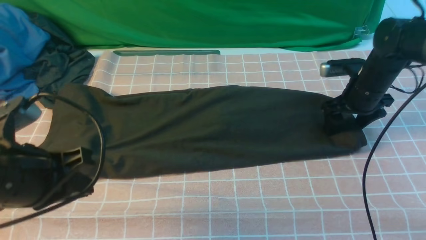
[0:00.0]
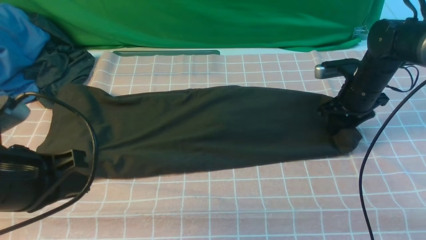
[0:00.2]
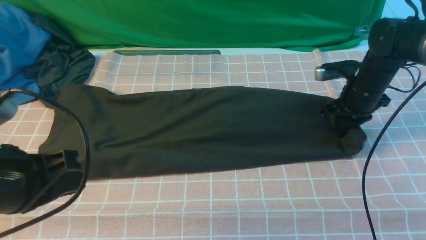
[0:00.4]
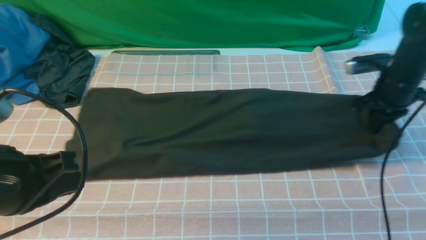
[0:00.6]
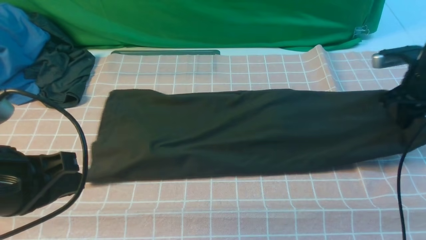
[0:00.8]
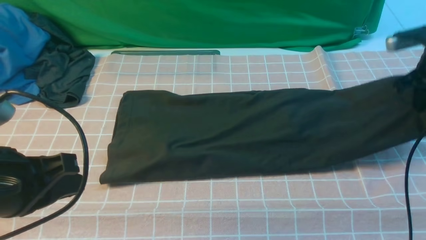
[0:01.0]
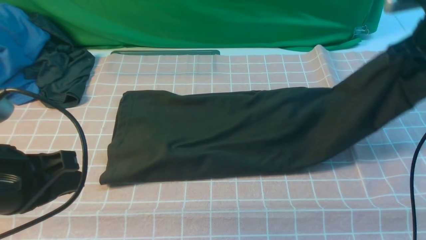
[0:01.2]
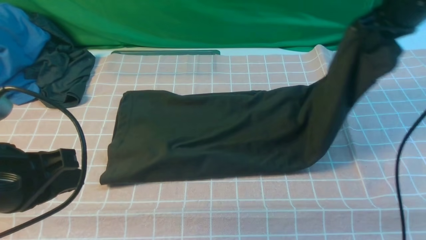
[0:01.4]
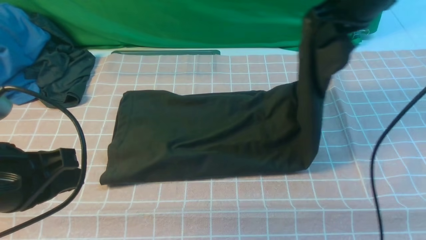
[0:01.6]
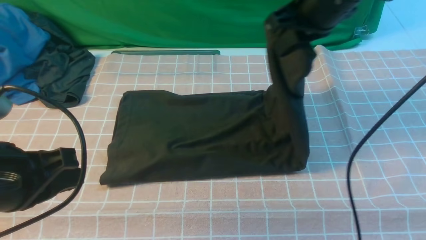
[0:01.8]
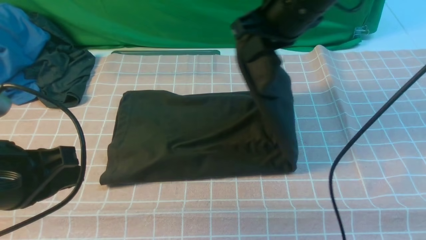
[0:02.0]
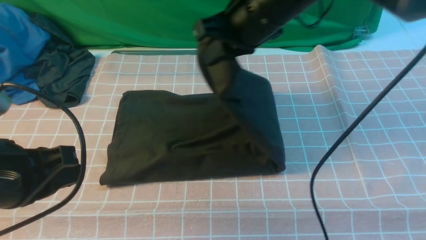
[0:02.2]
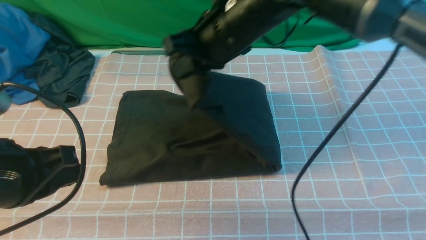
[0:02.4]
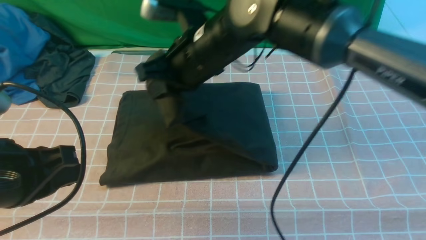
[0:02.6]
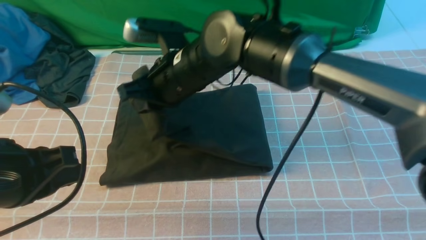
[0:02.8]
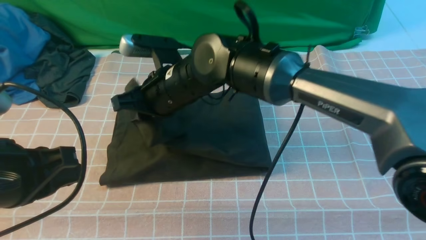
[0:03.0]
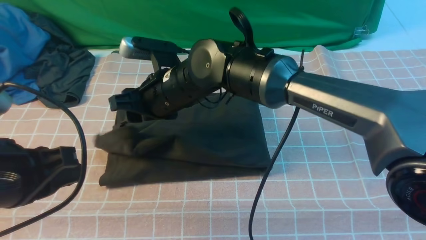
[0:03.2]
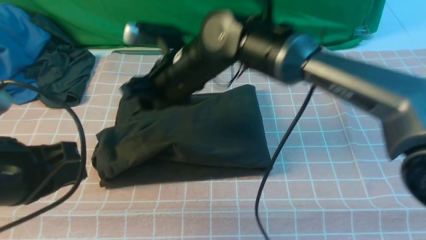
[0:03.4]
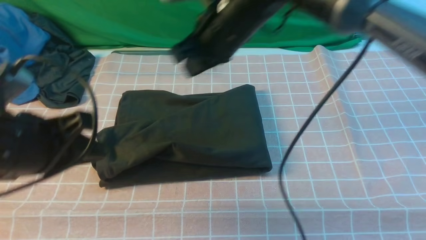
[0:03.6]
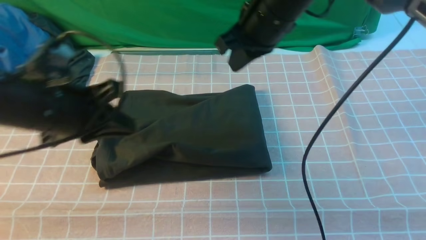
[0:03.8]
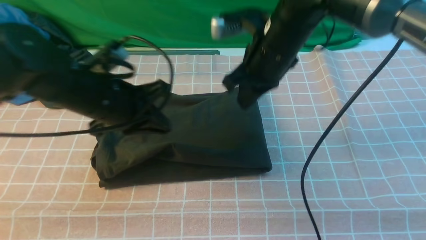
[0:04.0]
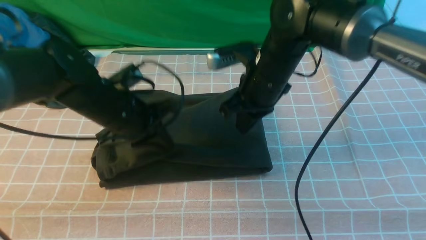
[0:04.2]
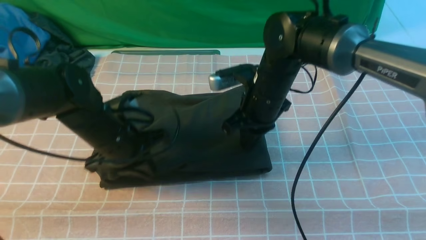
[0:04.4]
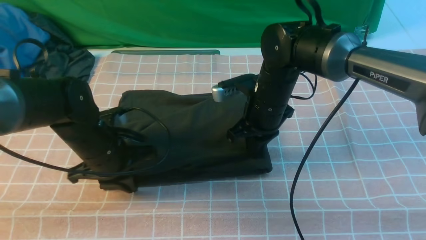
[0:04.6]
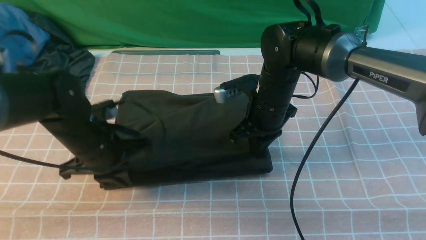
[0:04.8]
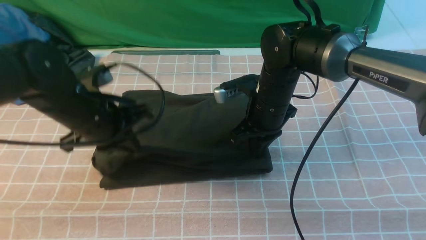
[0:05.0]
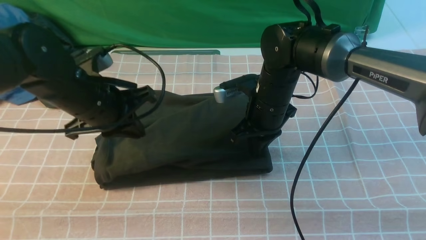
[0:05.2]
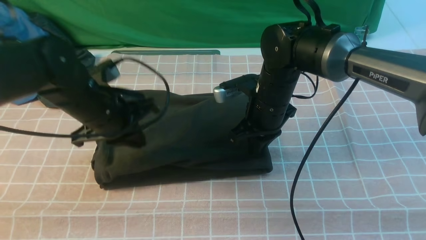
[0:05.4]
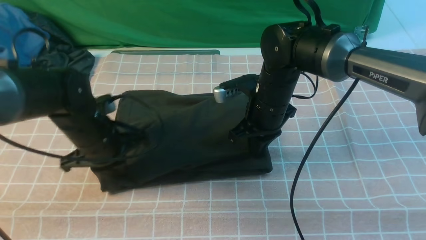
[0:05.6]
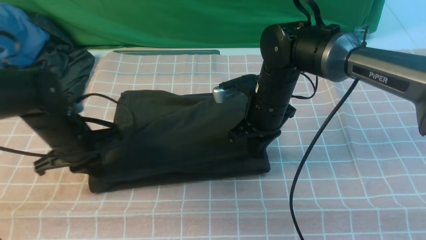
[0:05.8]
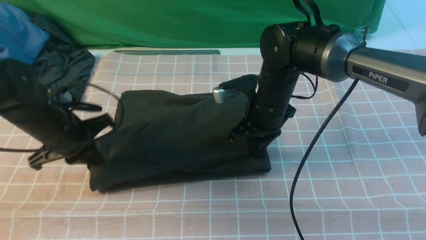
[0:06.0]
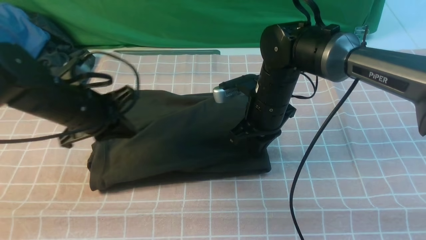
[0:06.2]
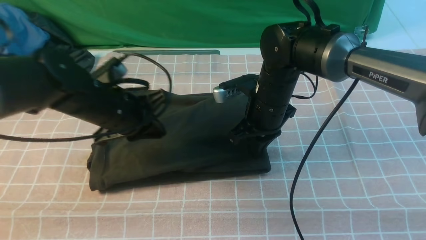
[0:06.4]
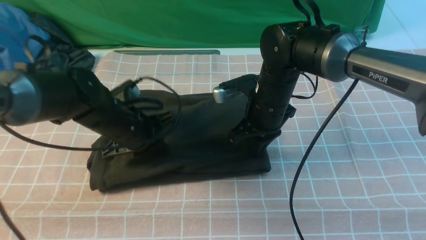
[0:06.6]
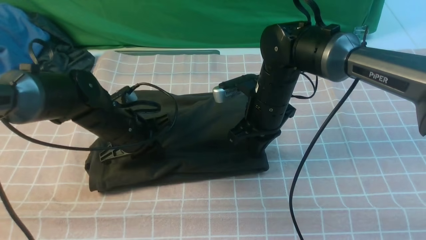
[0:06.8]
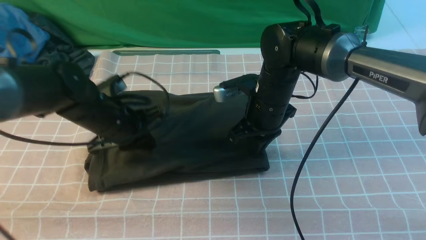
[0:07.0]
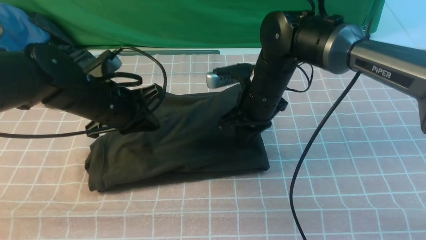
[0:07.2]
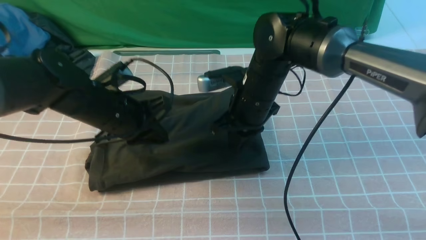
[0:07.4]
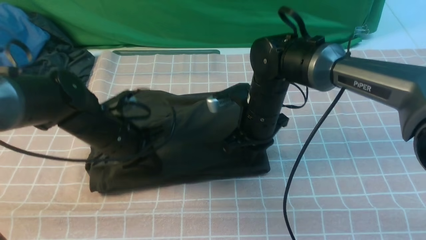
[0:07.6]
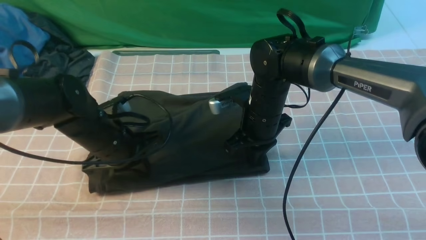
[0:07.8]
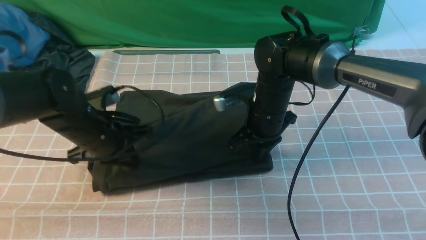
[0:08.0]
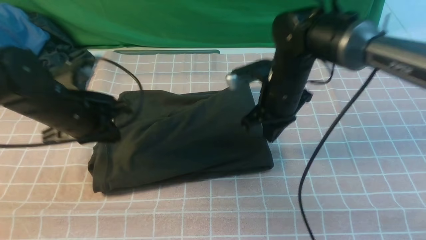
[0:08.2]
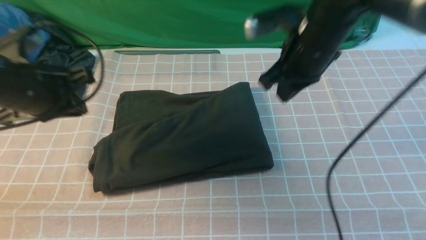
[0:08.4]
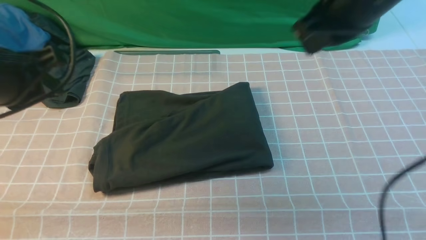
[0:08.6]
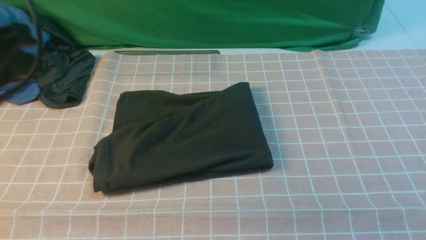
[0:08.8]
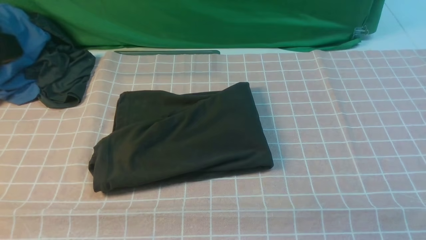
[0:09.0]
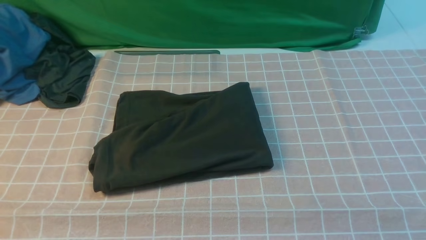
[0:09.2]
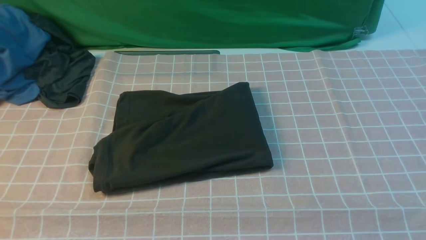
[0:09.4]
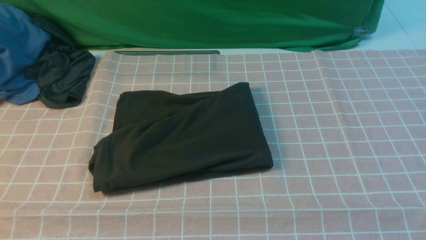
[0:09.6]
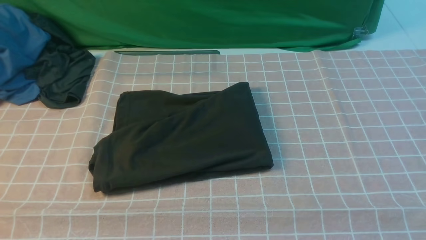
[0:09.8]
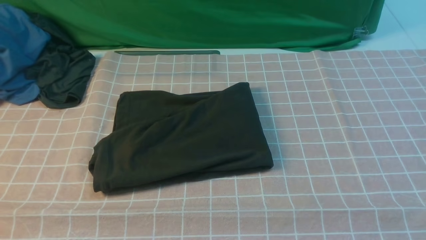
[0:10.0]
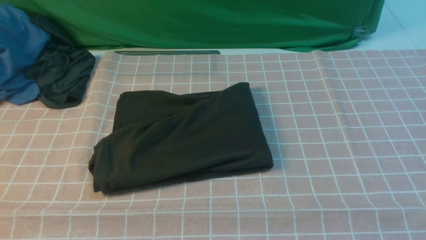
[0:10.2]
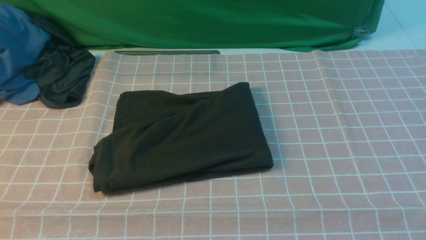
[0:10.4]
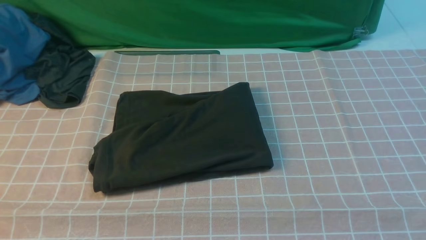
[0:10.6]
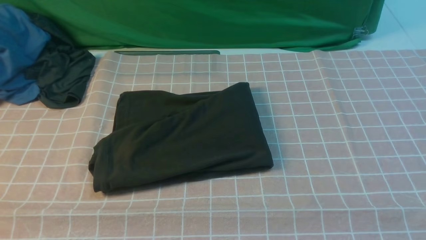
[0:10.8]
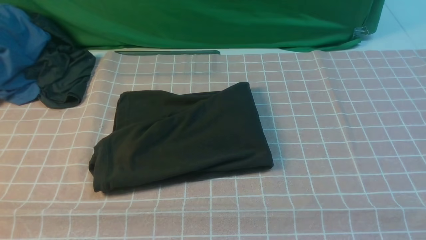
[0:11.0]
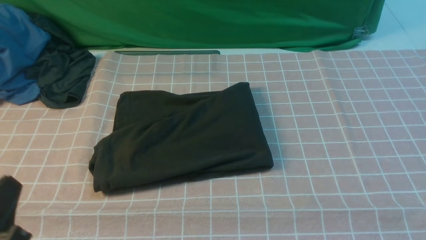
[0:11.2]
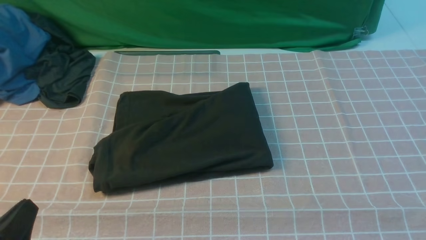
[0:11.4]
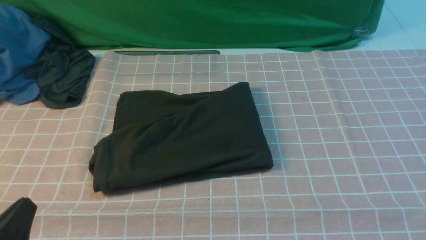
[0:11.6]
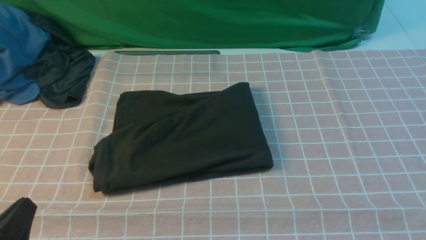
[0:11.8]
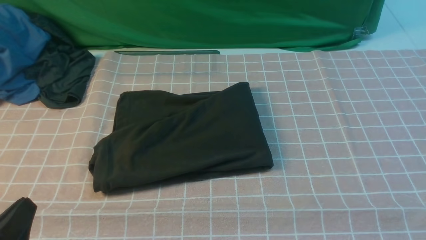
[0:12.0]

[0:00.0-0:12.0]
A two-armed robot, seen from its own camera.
Step, 0:00.8 to 0:03.2: use the right arm to drag the right edge of the fabric to the left and folds it over the left edge.
0:00.0 to 0:01.6: The right gripper shifts roughly 20 cm upward and to the left, and closes its fingers.
0:01.6 to 0:03.0: The right gripper heads to the left and downward, covering about 25 cm, and opens its fingers.
0:03.0 to 0:04.4: The left gripper shifts roughly 20 cm forward and downward; the right gripper is displaced to the right by roughly 15 cm, and closes.
0:04.4 to 0:06.0: The left gripper is displaced to the left by approximately 5 cm.
0:06.0 to 0:07.6: The left gripper travels to the right by roughly 5 cm.
0:07.6 to 0:09.0: The right gripper is displaced upward, backward and to the right by some 40 cm, while the left gripper shifts about 30 cm upward and backward.
0:10.4 to 0:12.0: The left gripper moves downward, some 15 cm.

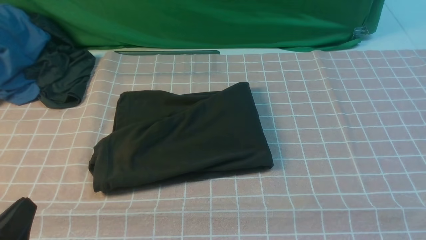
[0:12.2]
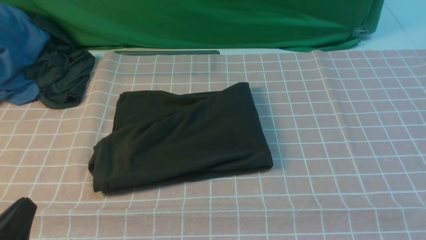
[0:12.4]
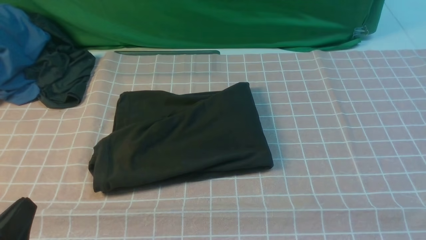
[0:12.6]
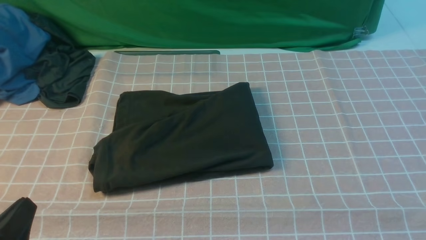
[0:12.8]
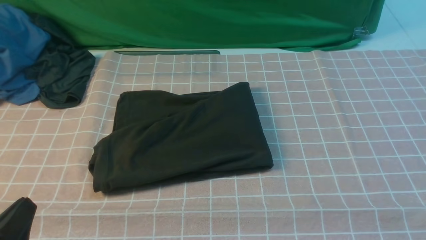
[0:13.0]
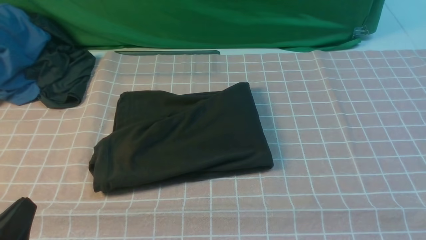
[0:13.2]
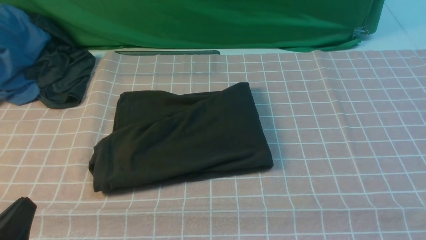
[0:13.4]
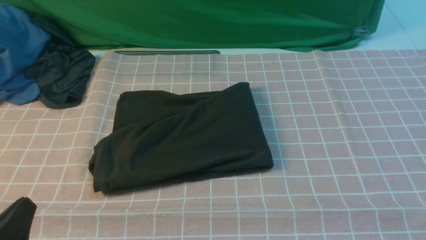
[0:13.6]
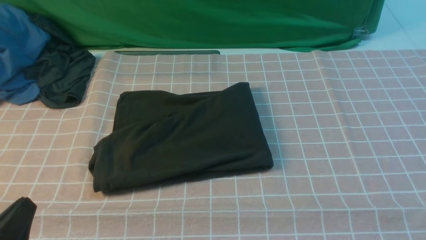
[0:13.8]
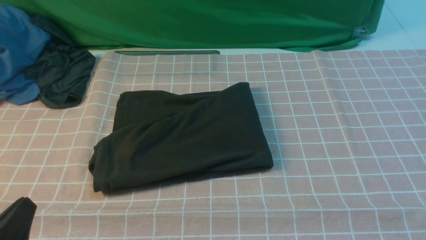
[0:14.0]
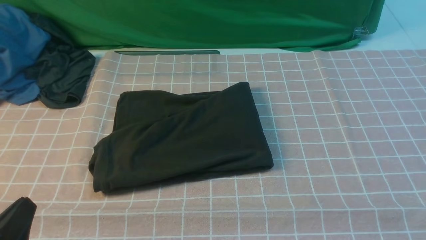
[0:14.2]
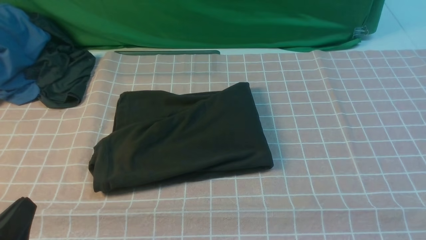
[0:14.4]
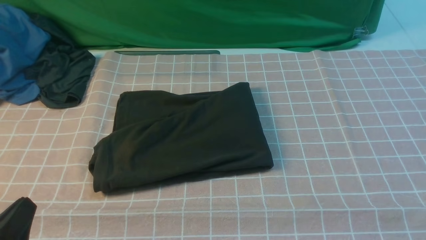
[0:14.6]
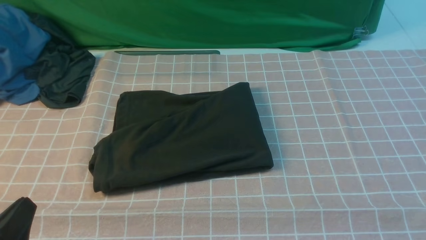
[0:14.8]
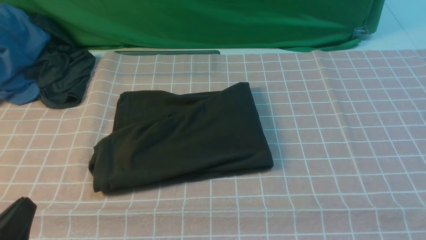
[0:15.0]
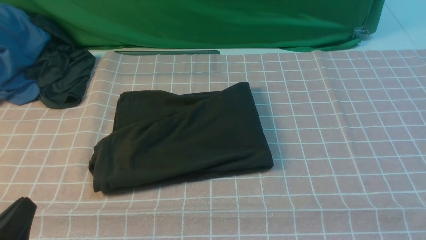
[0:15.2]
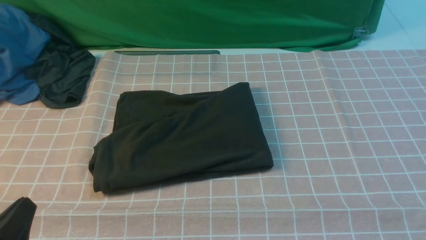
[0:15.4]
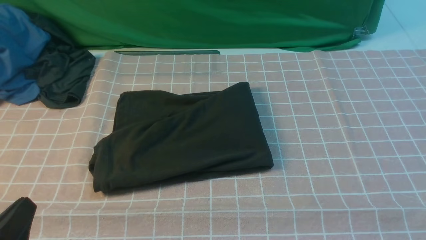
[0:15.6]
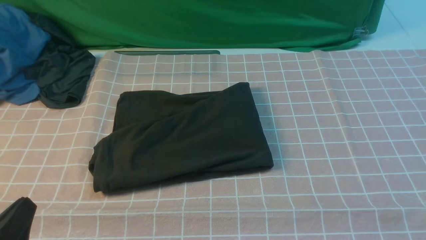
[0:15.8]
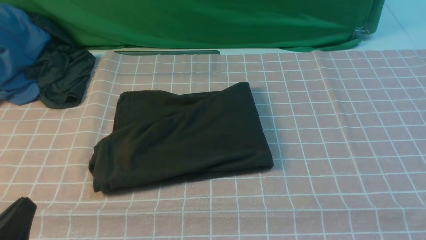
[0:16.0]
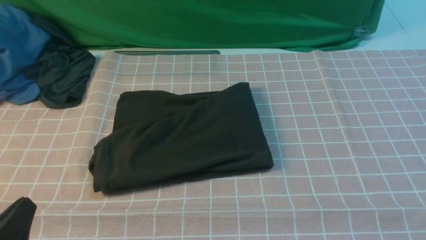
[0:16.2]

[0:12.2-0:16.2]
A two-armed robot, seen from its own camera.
0:13.6 to 0:16.2: The two grippers keep their place.
